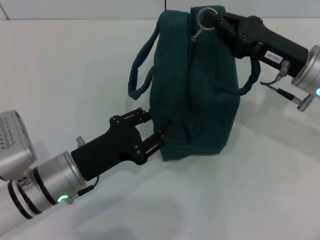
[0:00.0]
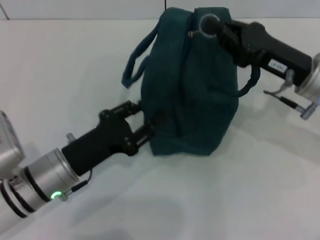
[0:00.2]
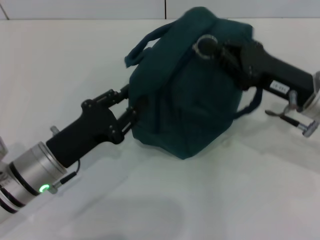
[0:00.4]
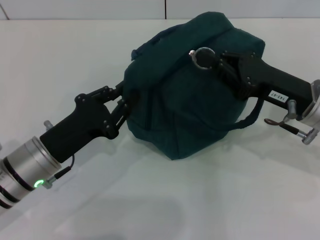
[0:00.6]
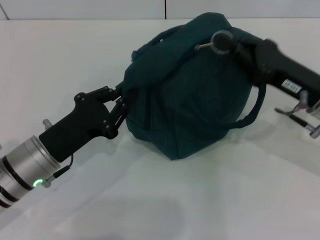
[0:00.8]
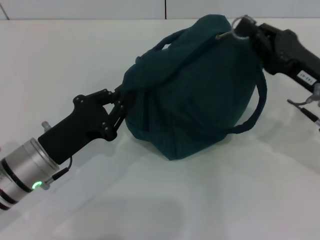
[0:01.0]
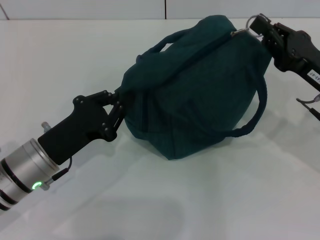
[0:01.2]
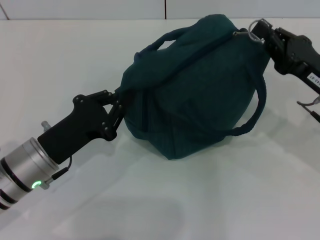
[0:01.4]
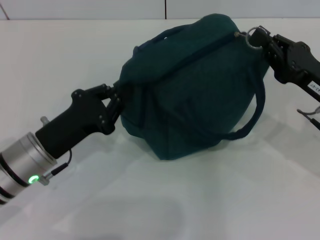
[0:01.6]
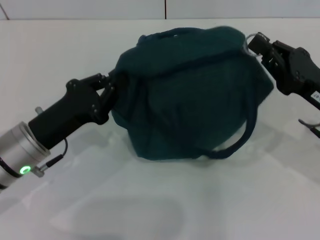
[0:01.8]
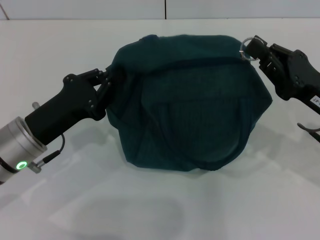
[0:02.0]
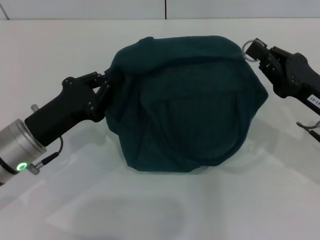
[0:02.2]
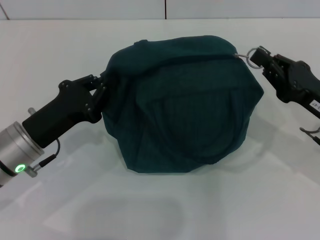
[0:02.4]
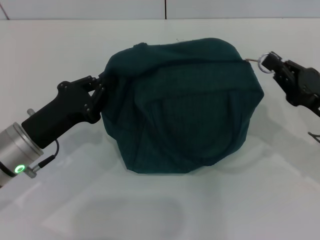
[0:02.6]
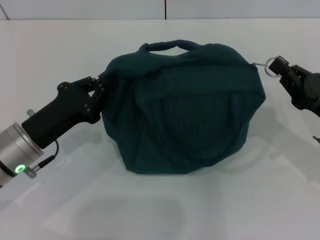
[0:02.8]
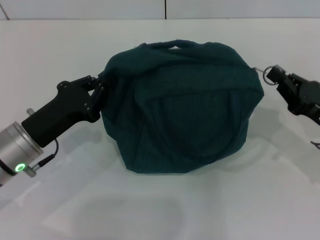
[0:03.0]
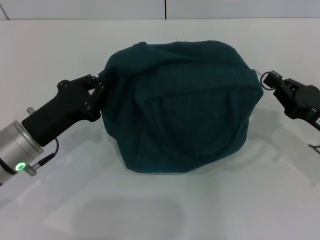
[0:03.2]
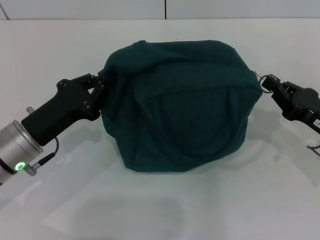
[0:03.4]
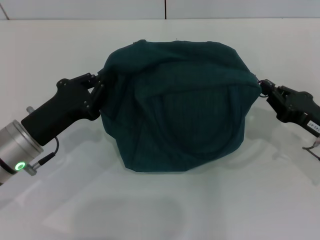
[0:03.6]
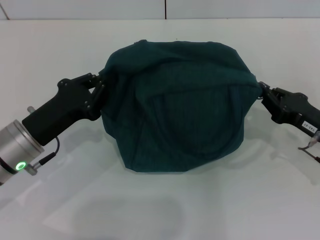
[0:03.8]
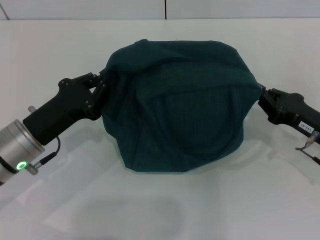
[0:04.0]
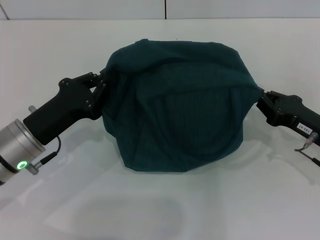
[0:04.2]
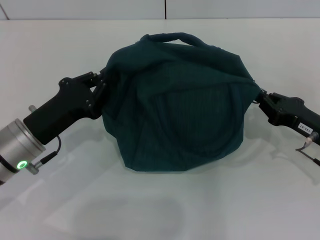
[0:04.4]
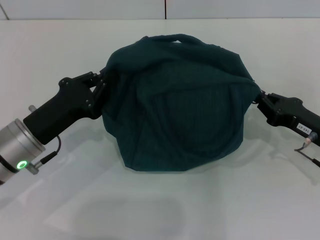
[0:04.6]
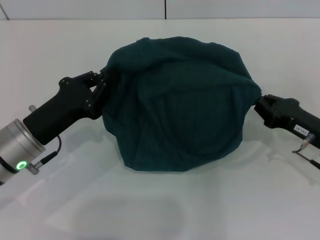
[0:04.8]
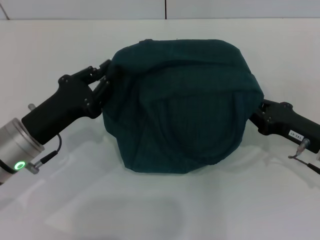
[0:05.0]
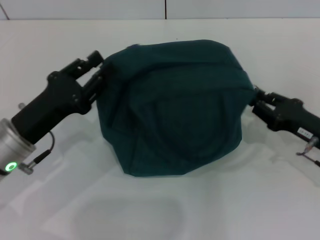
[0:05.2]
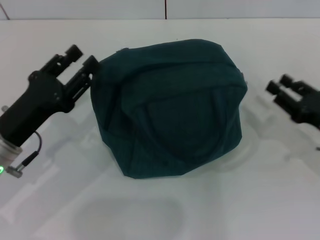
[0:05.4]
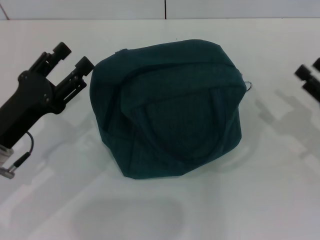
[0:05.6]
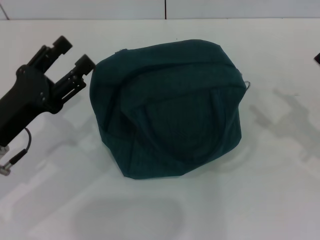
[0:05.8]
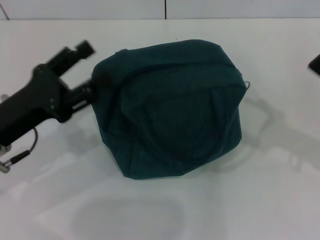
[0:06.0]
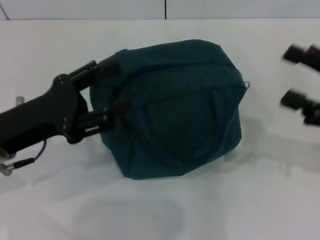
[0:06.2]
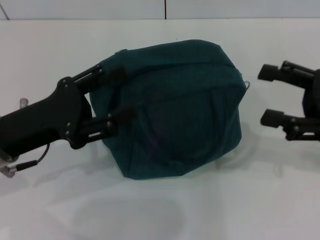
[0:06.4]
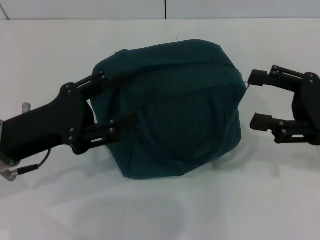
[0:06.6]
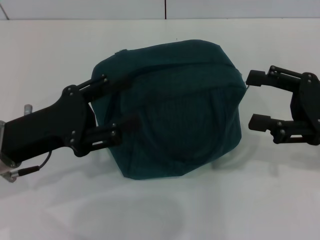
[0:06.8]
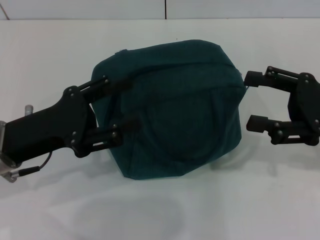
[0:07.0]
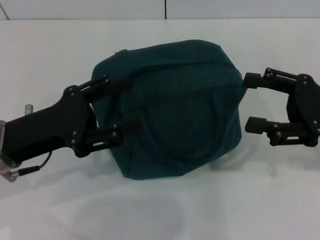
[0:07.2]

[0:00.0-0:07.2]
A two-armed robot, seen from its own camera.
Step, 0:00.0 to 0:05.0: Hold the lunch bag with your left hand.
0:00.0 to 0:01.4: The left gripper closes its fingers, while the right gripper shifts by about 5 cm.
0:01.4 to 0:02.8: The right gripper ends up roughly 5 cm from where it was.
0:02.8 to 0:04.4: There are only small adjustments of the grippers.
0:04.4 to 0:05.8: The left gripper opens up. The right gripper is displaced to the right by approximately 5 cm, and opens its fingers.
0:05.8 to 0:07.2: The right gripper is displaced upward and to the left by about 10 cm.

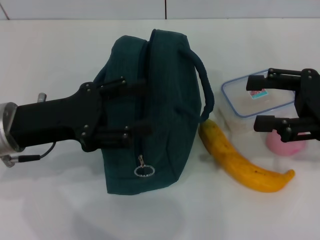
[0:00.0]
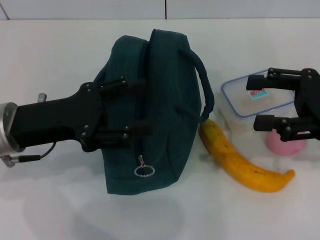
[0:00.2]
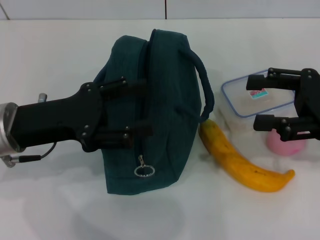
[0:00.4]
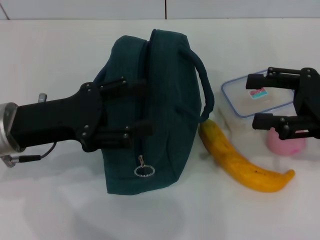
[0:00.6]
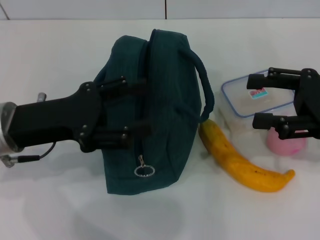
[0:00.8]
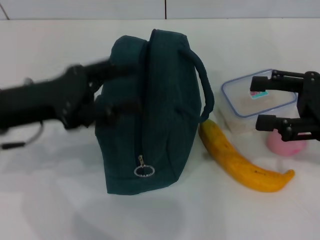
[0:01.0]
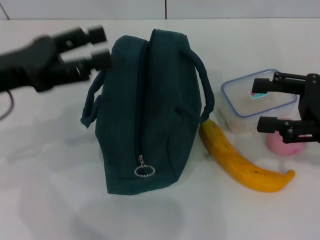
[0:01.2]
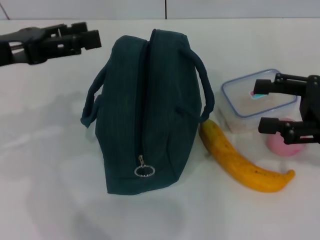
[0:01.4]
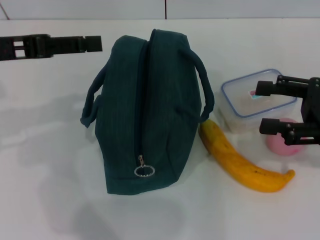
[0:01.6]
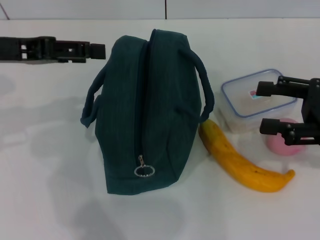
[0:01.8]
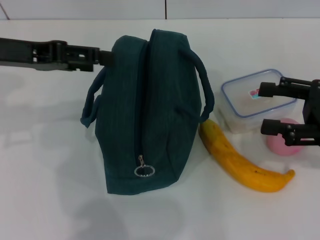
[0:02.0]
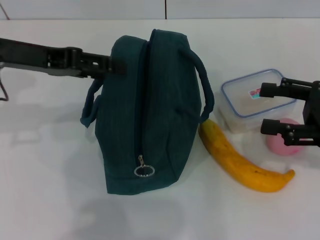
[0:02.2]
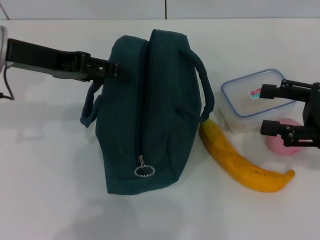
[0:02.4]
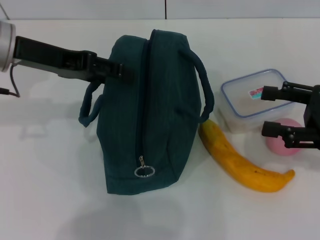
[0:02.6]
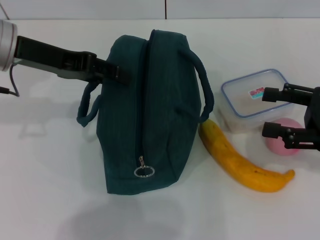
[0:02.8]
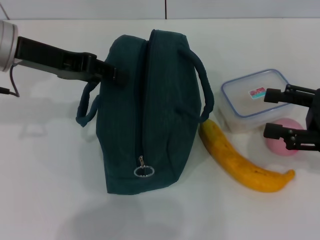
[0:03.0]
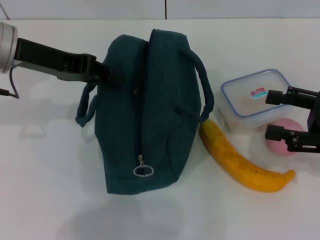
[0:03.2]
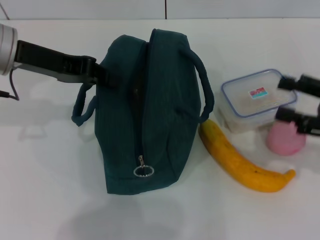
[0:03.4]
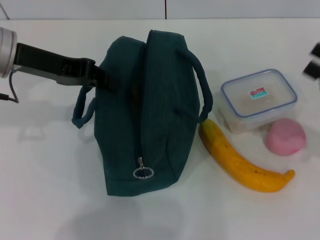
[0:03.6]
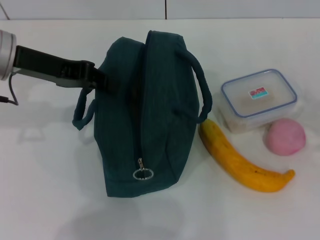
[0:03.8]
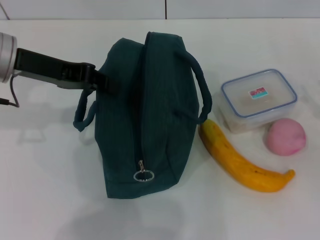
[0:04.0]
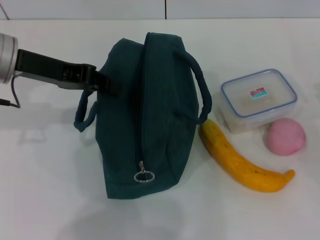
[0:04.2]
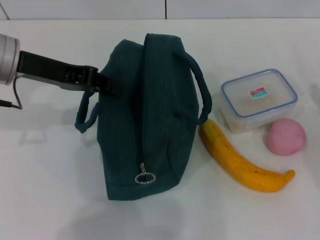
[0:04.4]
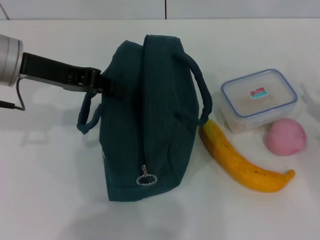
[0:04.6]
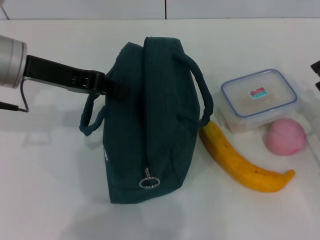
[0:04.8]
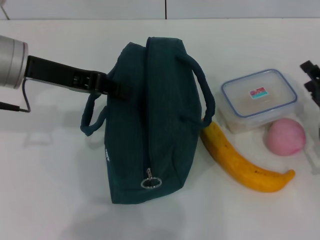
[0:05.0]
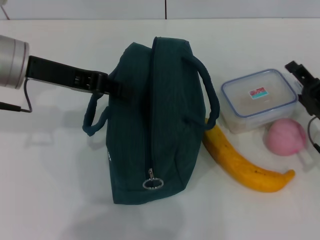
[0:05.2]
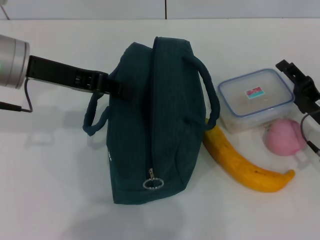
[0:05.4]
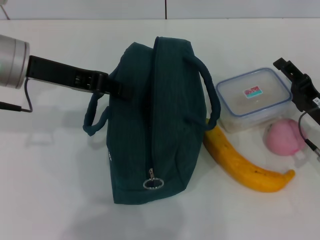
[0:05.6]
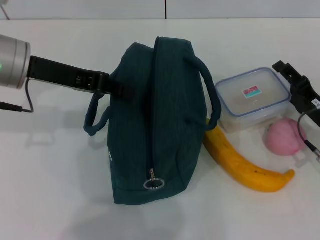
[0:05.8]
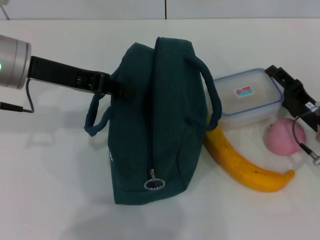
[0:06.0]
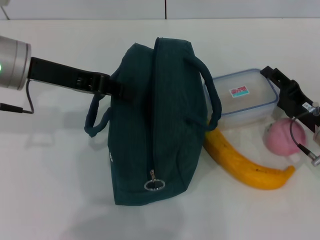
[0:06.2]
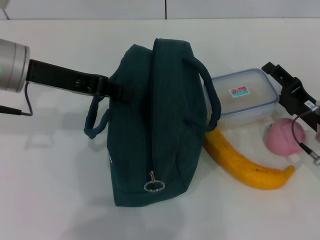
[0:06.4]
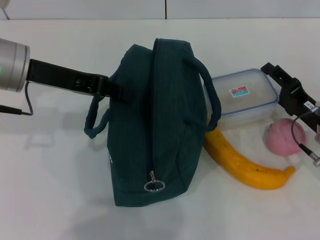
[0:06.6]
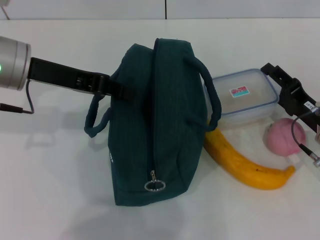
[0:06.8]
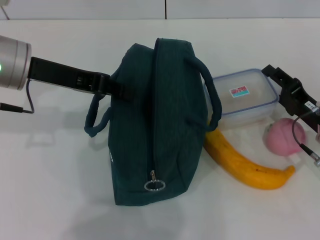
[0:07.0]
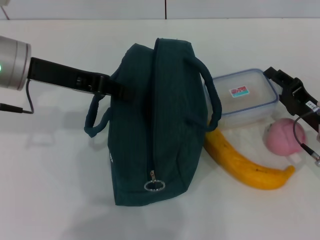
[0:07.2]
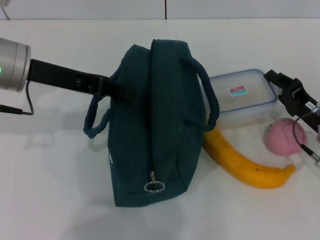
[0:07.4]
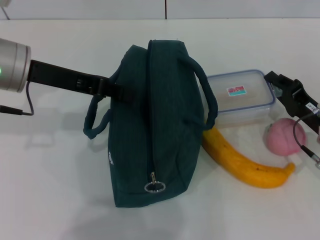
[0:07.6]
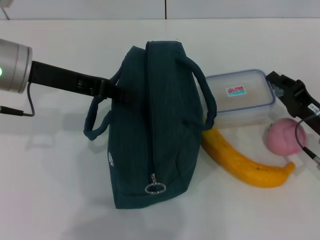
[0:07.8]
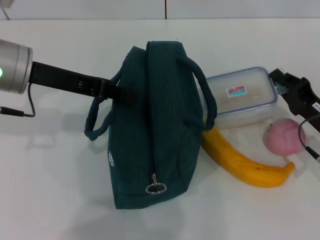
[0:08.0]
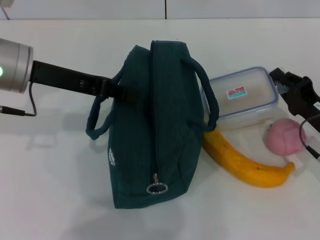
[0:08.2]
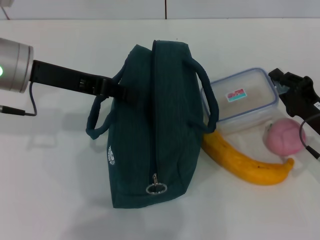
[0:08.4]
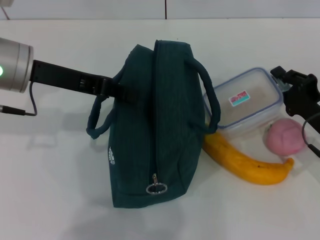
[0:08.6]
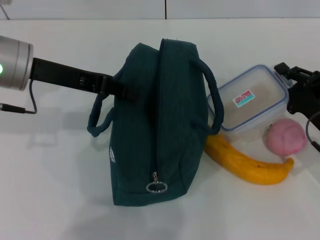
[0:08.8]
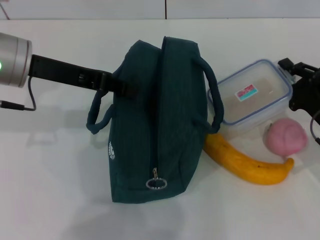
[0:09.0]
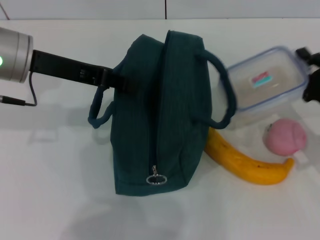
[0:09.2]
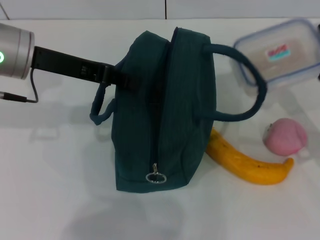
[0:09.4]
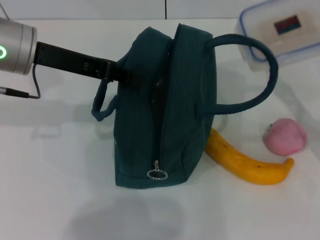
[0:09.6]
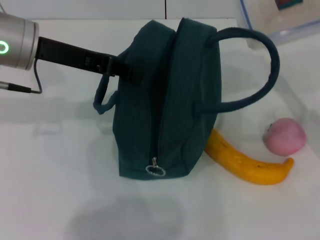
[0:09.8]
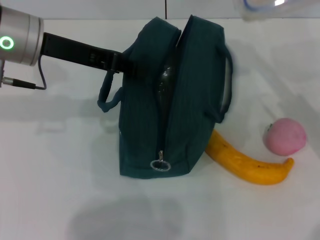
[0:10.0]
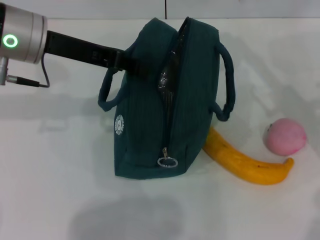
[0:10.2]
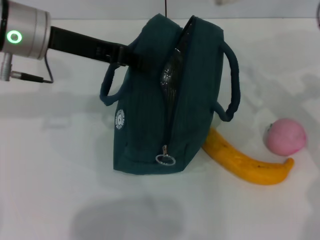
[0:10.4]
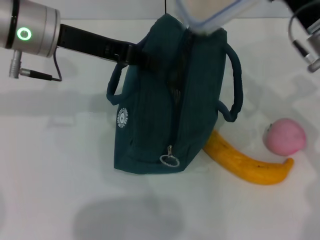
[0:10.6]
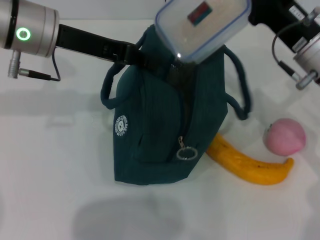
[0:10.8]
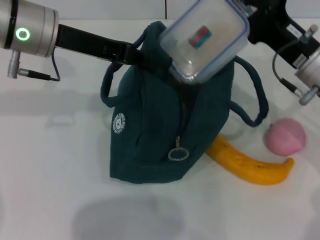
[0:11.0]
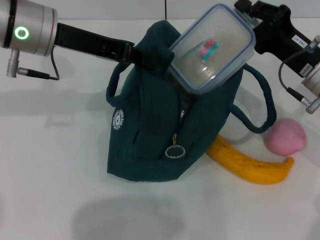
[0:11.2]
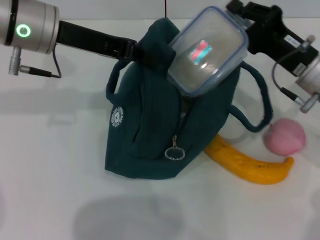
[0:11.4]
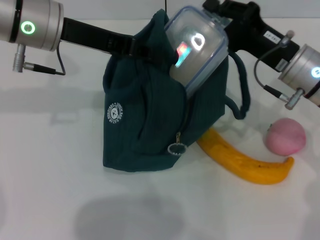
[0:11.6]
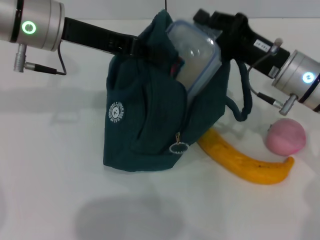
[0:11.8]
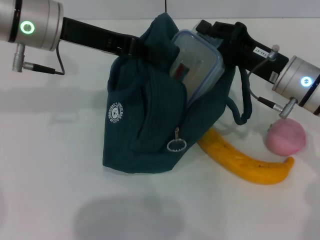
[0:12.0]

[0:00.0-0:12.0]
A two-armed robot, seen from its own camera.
Step, 0:00.0 to 0:04.8: Hold the lunch bag with your left hand.
Step, 0:05.0 to 0:08.2: Pick up the lunch box with your right hand.
0:00.0 to 0:01.6: The left gripper goes approximately 10 cm upward.
0:01.6 to 0:03.0: The left gripper ends up about 5 cm from where it was.
0:03.0 to 0:04.4: The right gripper travels downward by some 10 cm. The left gripper closes its fingers.
0:04.4 to 0:06.0: The right gripper moves to the left, approximately 10 cm.
0:06.0 to 0:07.6: The right gripper closes up.
0:09.0 to 0:10.4: The right gripper shifts some 15 cm upward and forward.
0:10.4 to 0:12.0: The right gripper travels downward by some 5 cm.

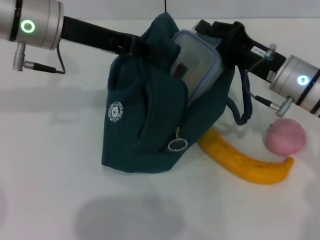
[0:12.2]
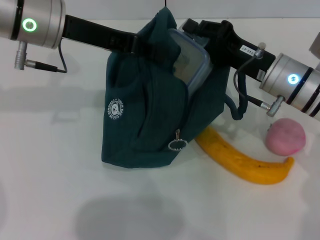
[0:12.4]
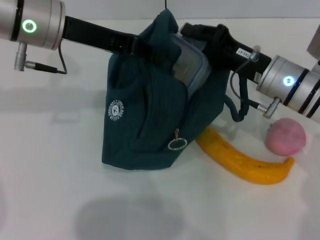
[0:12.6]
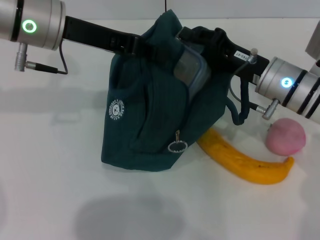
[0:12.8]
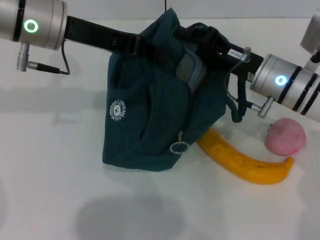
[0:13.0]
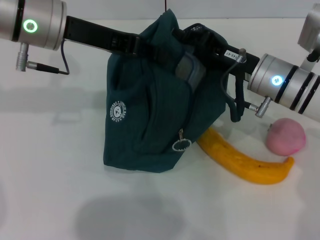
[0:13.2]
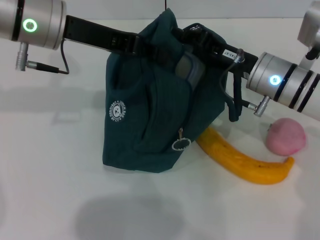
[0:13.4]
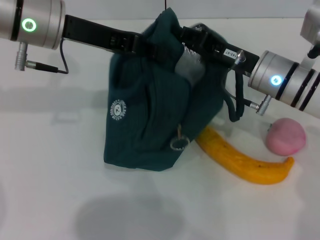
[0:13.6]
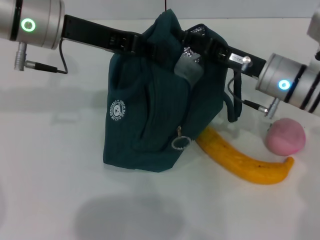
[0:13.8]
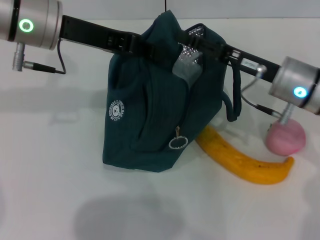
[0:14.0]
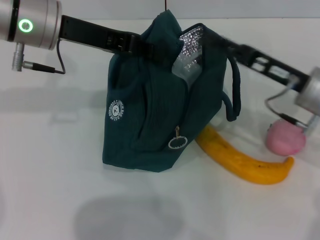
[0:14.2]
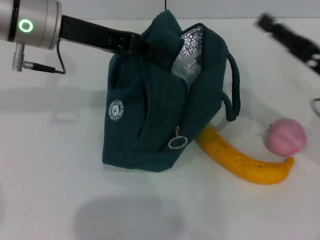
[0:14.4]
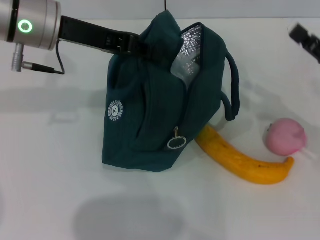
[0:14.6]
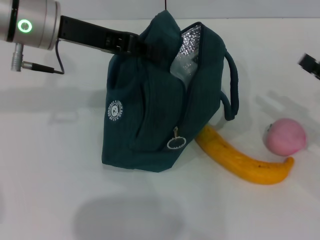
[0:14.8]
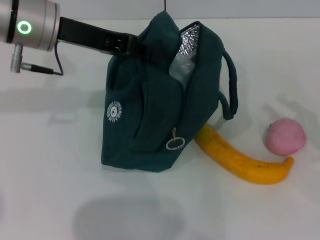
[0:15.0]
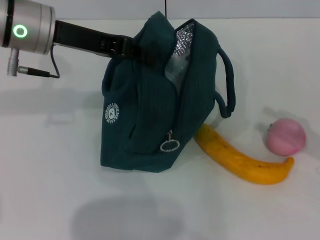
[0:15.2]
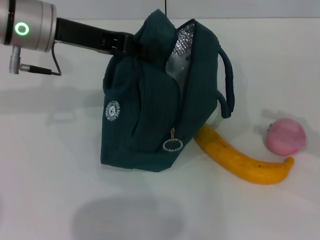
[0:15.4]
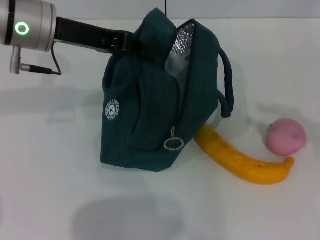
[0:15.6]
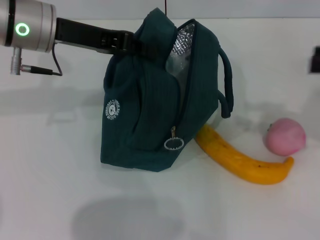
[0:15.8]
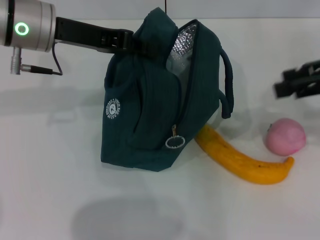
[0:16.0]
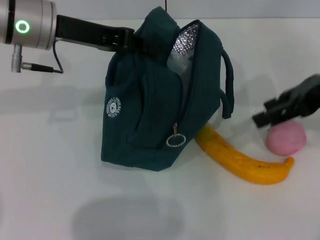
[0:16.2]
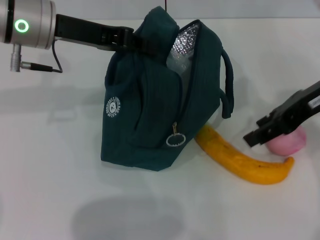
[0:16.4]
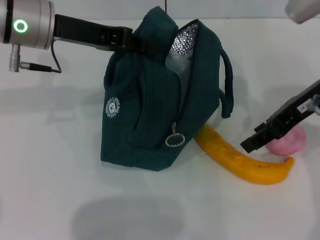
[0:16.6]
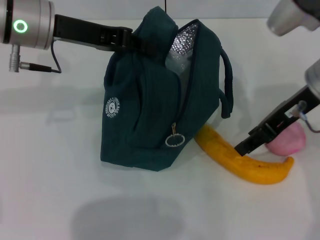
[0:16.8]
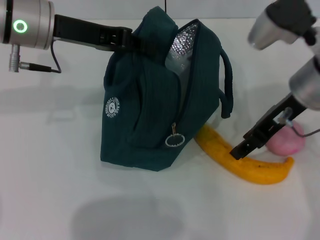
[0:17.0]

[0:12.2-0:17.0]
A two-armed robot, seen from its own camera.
0:13.8 to 0:15.4: The right gripper travels to the right and backward by roughly 25 cm, and opens up.
0:15.4 to 0:17.0: The right gripper shifts approximately 20 cm to the left and forward.
